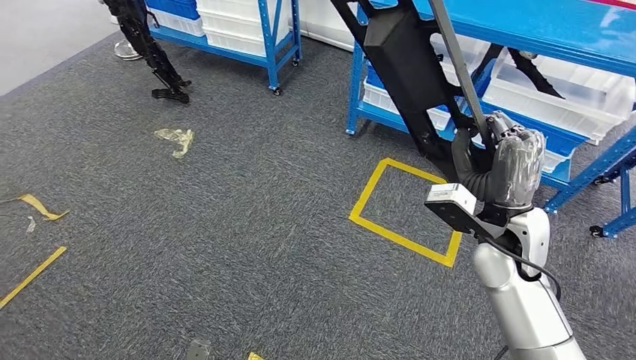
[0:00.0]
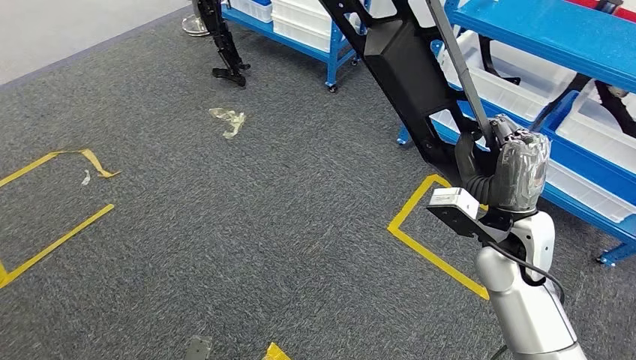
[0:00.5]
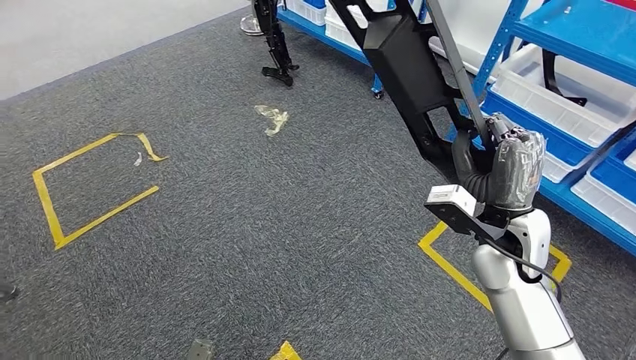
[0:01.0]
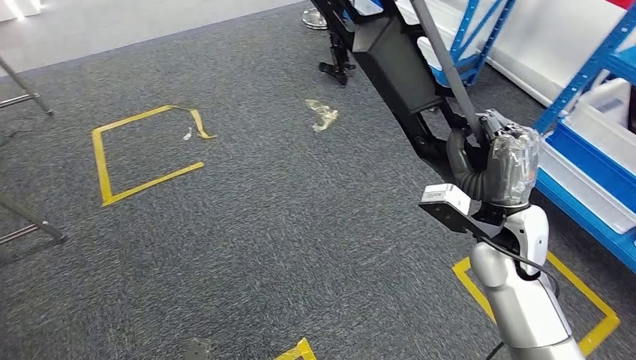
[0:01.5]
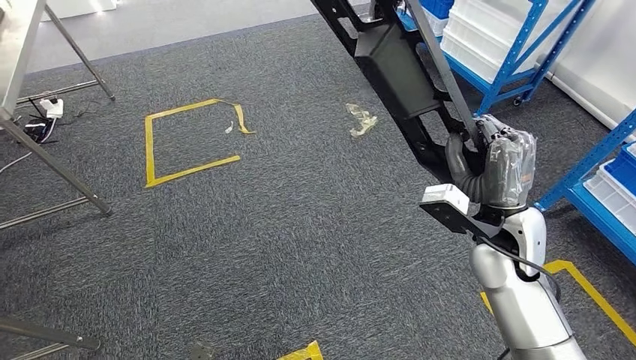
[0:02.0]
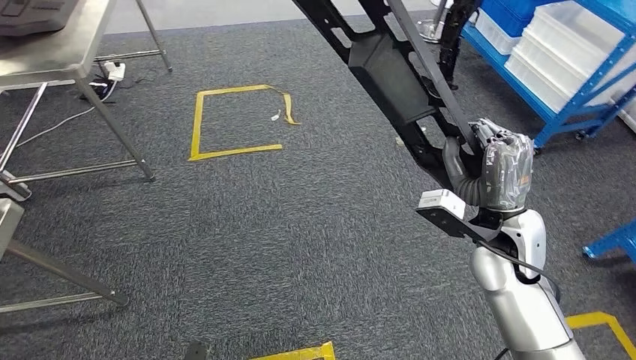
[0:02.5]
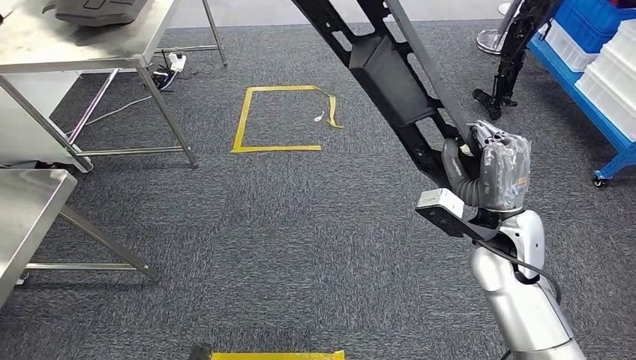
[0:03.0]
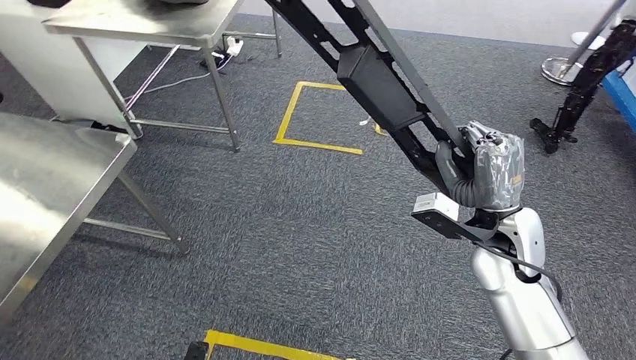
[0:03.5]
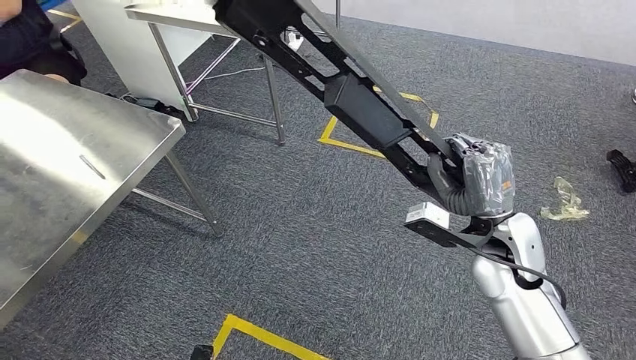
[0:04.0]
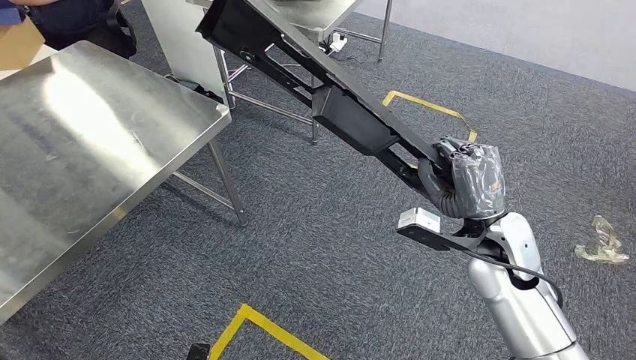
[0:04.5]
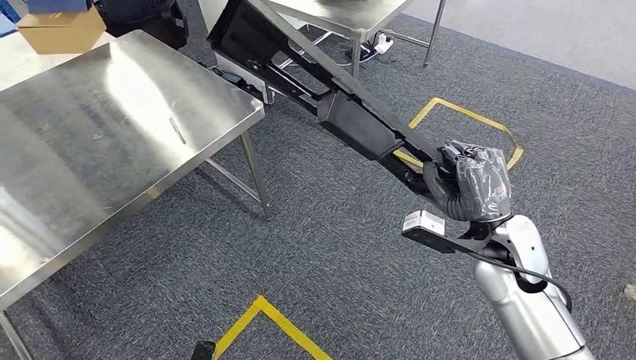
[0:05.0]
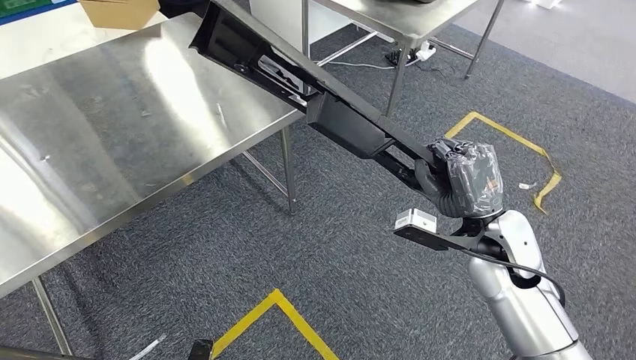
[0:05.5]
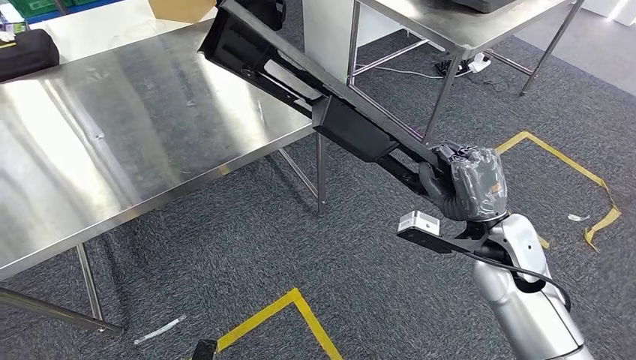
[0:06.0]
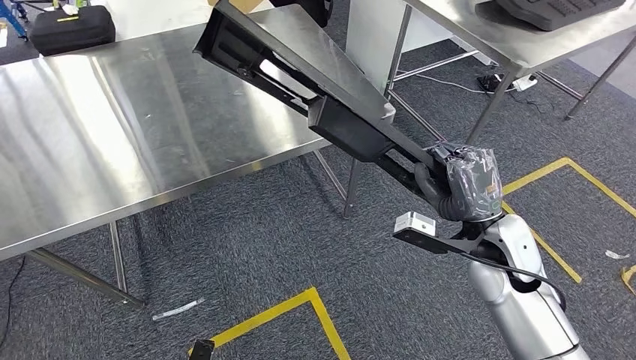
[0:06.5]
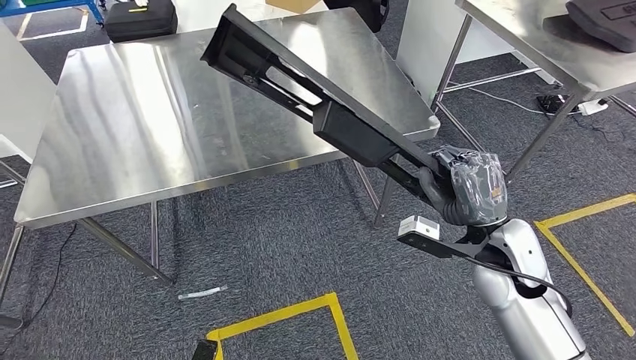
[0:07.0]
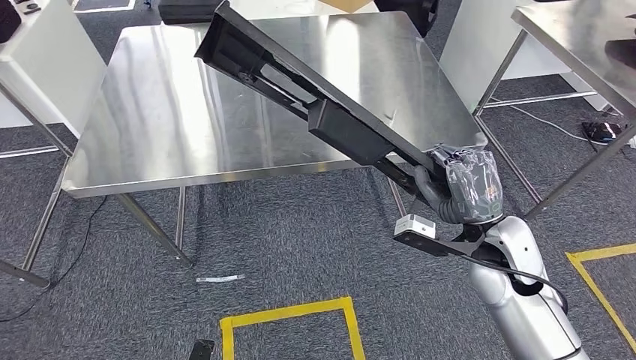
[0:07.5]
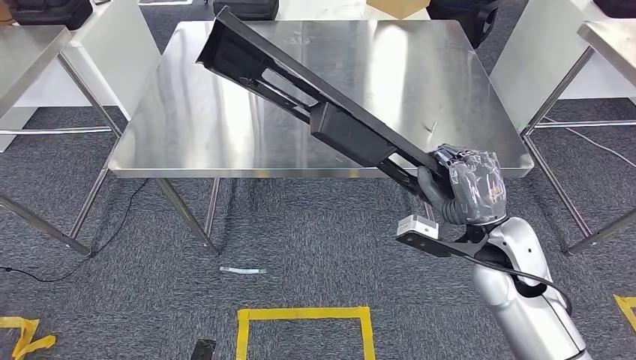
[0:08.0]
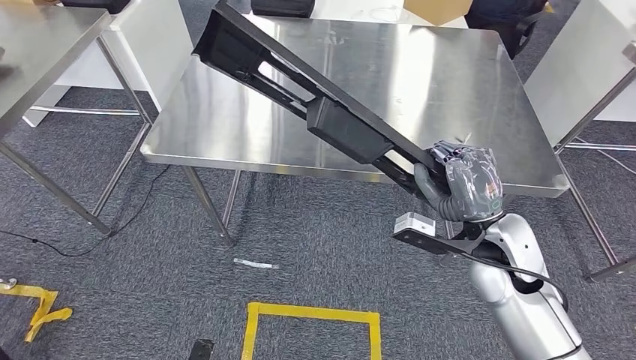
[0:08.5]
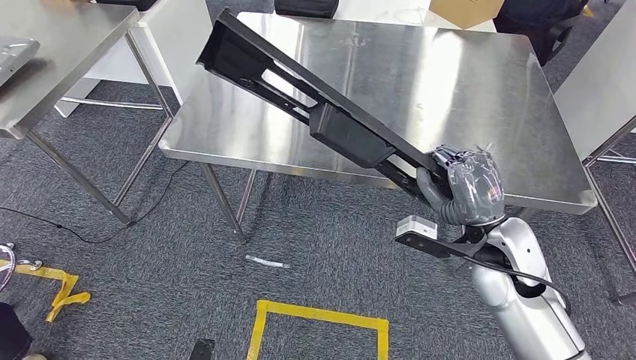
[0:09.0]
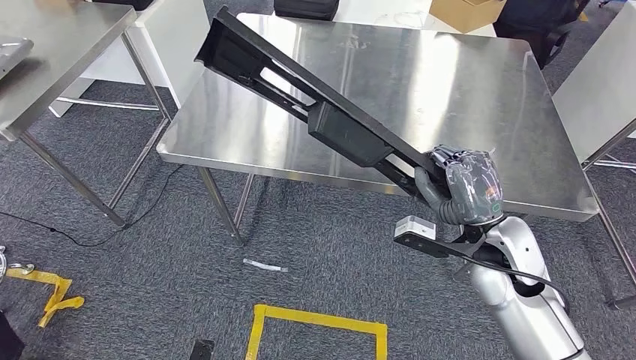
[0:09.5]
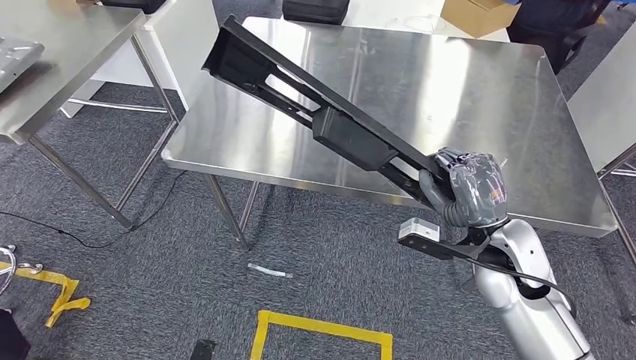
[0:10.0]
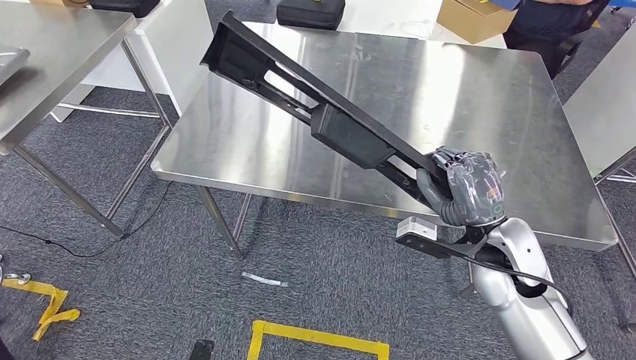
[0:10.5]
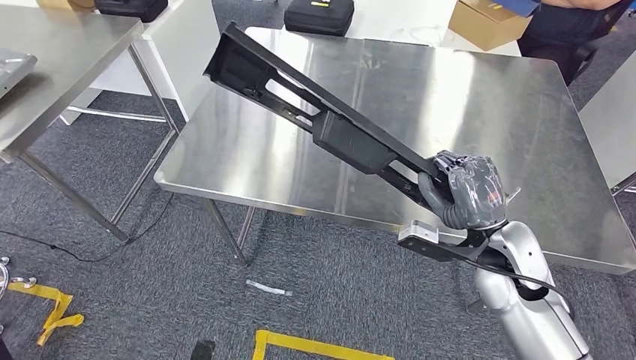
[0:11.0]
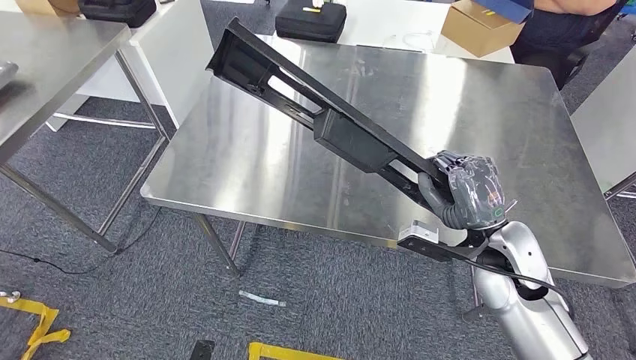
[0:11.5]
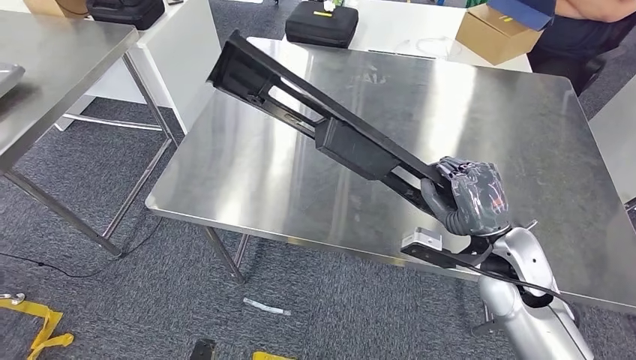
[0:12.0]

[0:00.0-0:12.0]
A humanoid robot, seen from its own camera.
Step, 0.0 to 6.0 s: Move the large material to the workbench.

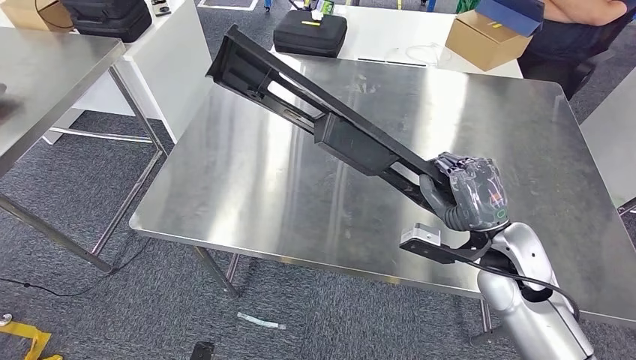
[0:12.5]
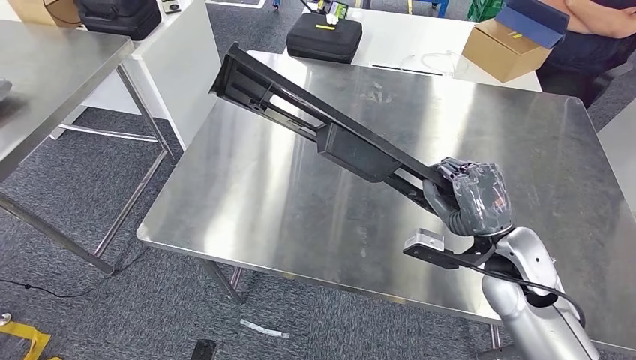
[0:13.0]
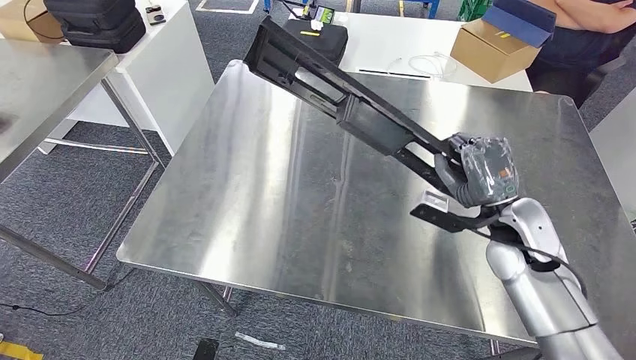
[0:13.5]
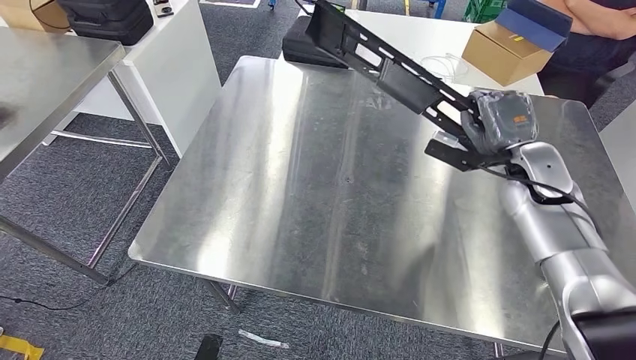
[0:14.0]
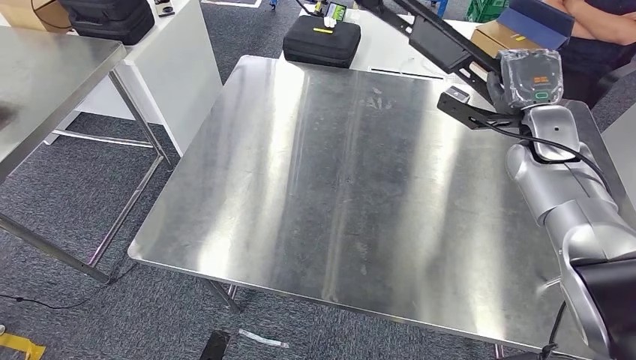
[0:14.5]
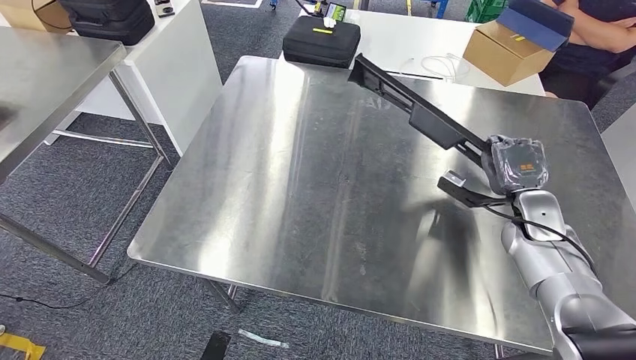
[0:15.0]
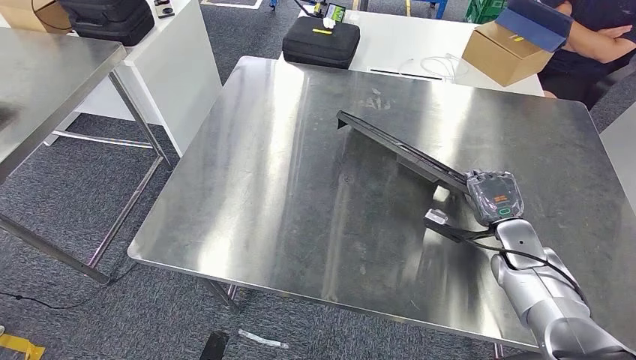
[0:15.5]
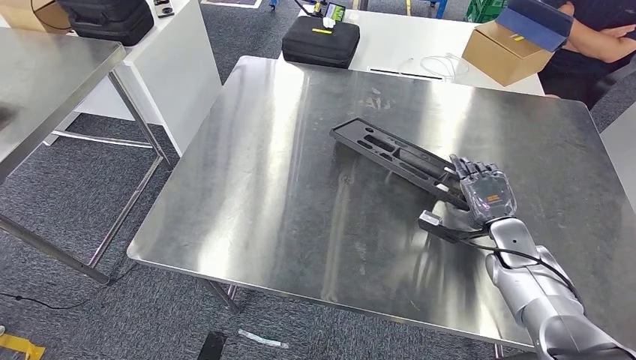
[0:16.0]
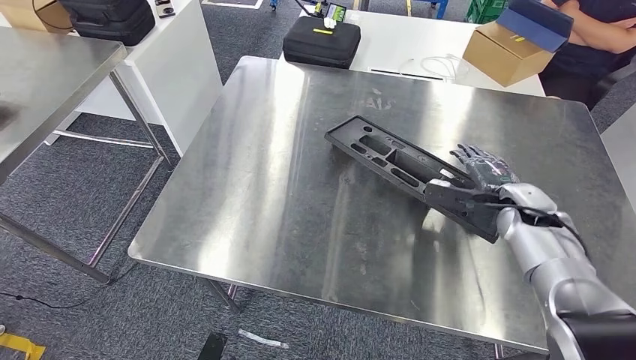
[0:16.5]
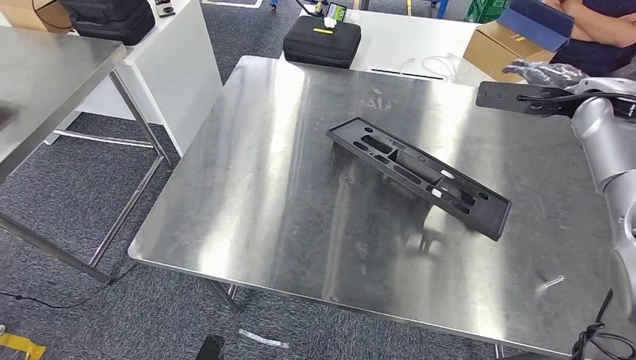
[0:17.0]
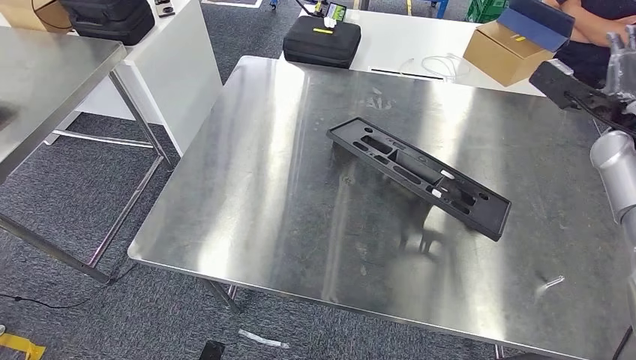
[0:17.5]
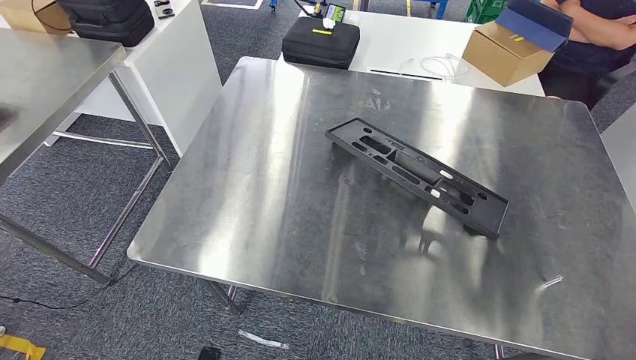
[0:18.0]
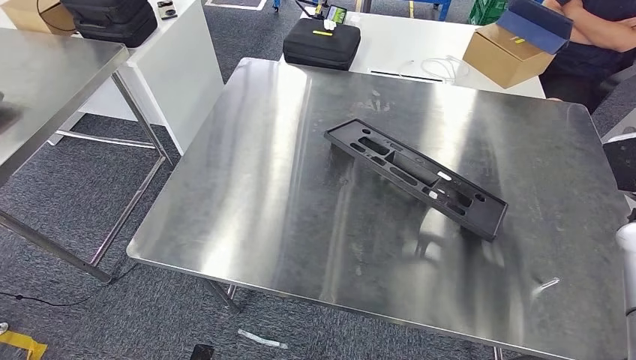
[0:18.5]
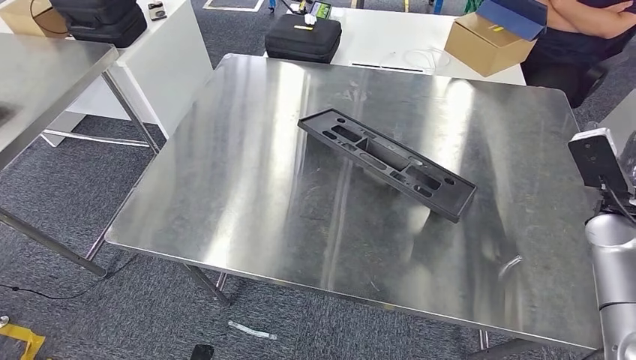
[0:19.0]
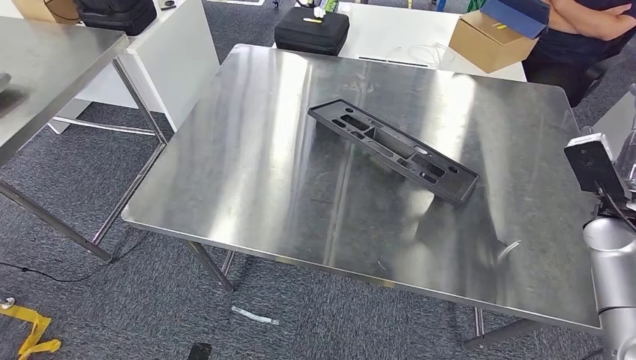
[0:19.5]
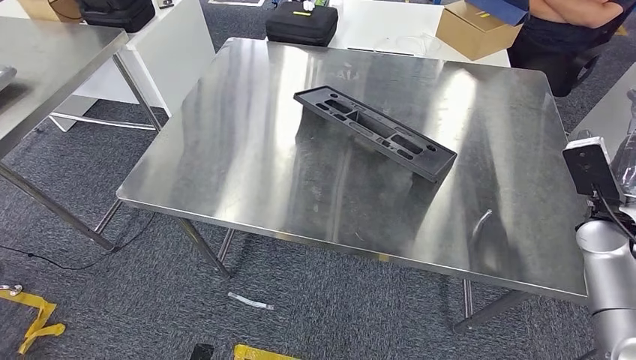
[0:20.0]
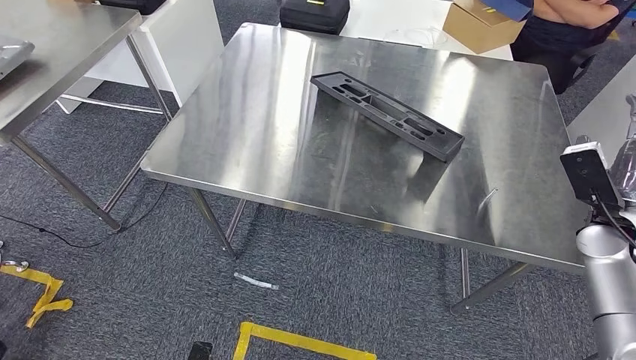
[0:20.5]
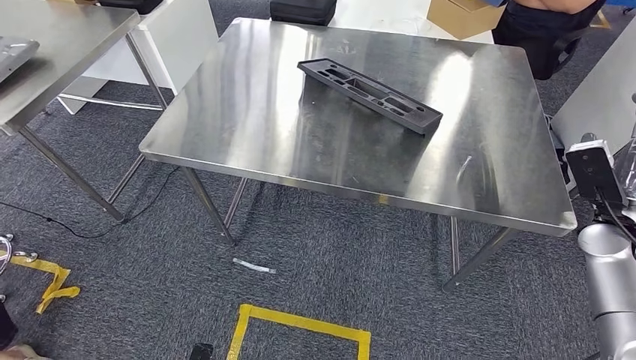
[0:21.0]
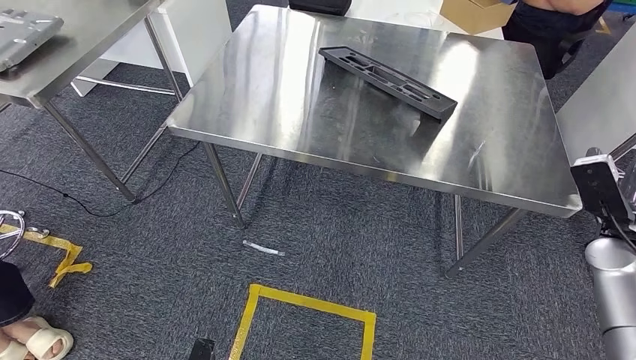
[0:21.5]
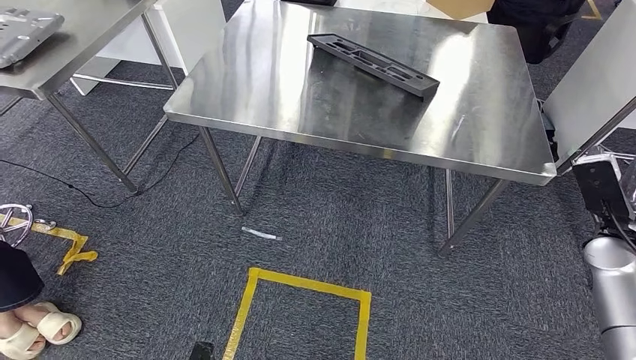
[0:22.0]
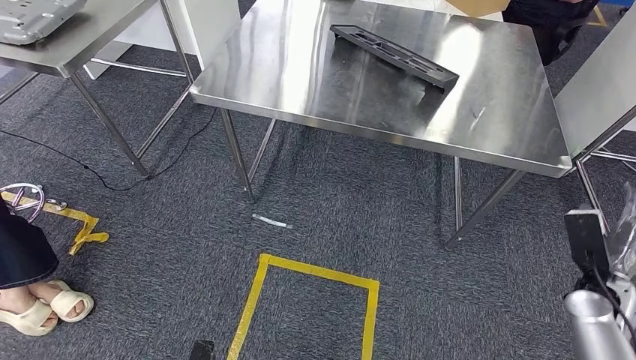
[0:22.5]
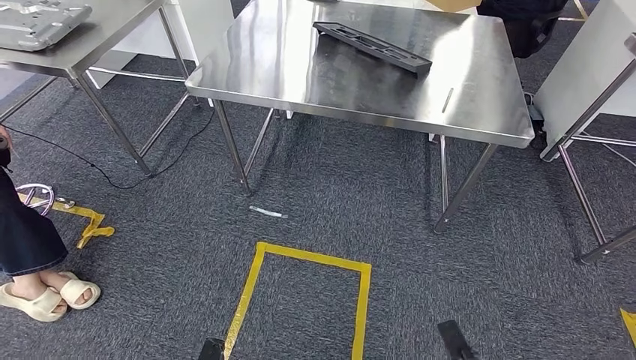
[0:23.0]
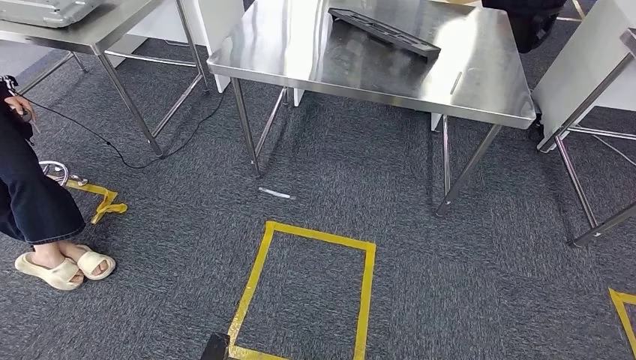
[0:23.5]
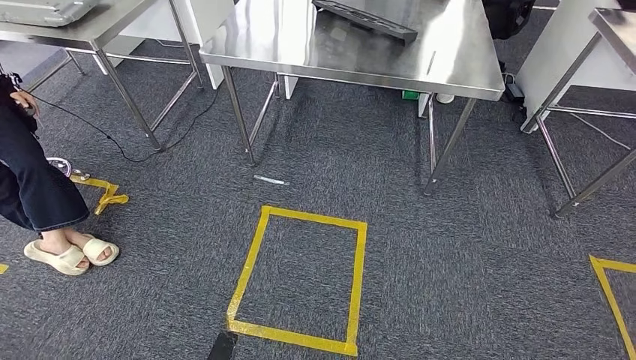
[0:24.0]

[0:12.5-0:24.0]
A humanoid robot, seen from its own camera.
Step, 12.5 to 21.5 s: Insert the large material into the corresponding slot on the workbench.
16.5 to 18.5 s: The right hand is displaced to the right, backward and upward by about 15 cm.
